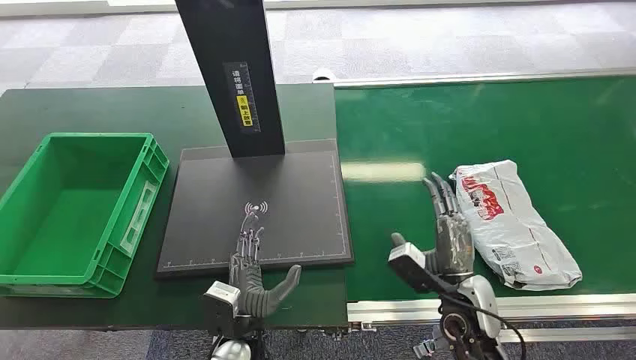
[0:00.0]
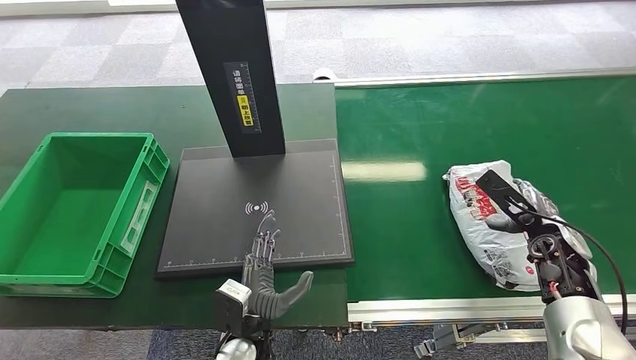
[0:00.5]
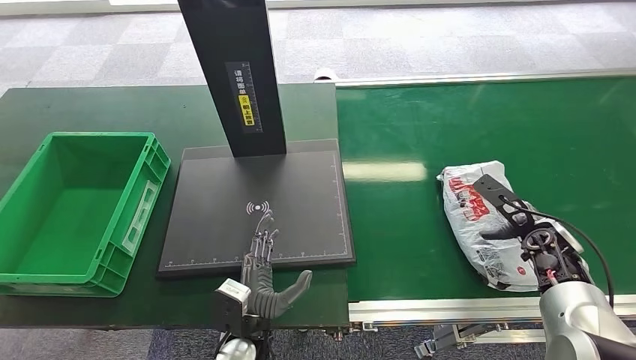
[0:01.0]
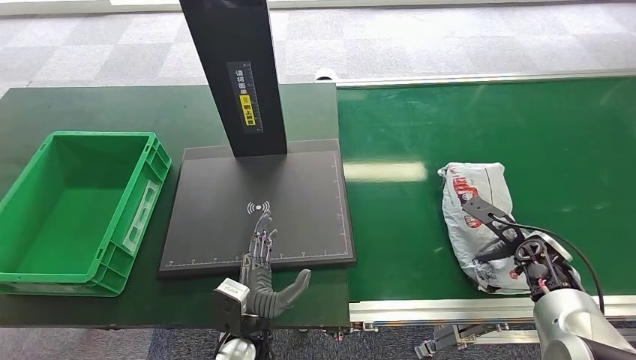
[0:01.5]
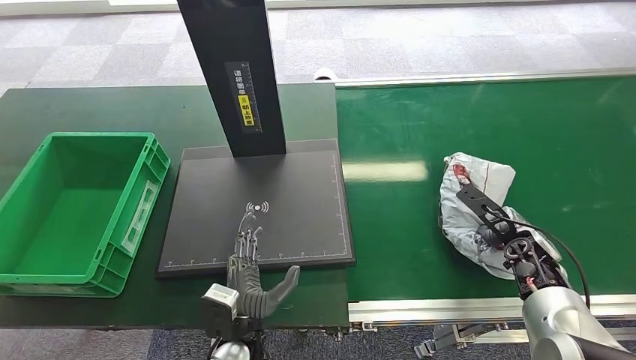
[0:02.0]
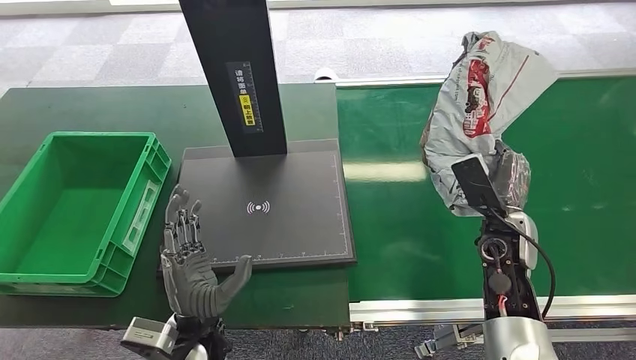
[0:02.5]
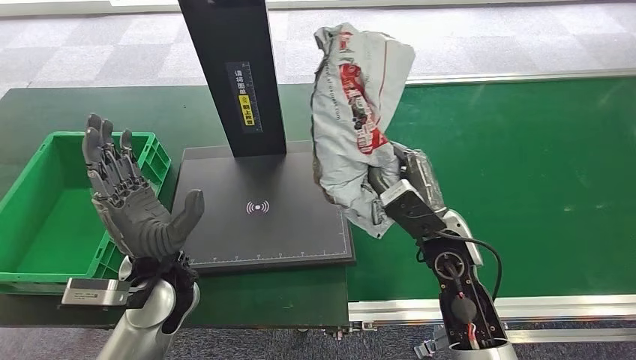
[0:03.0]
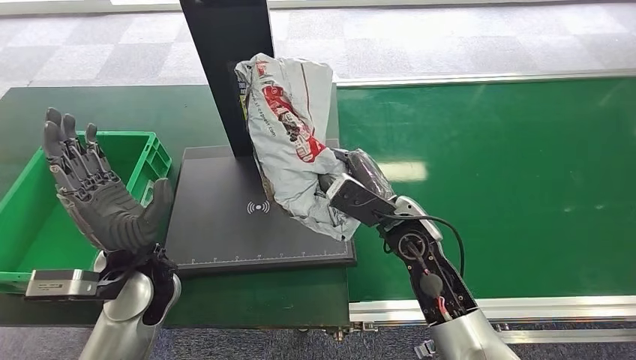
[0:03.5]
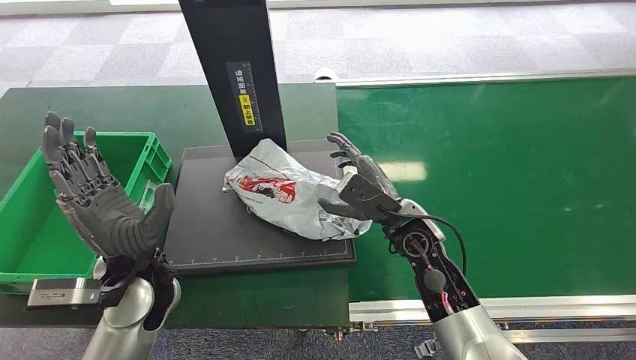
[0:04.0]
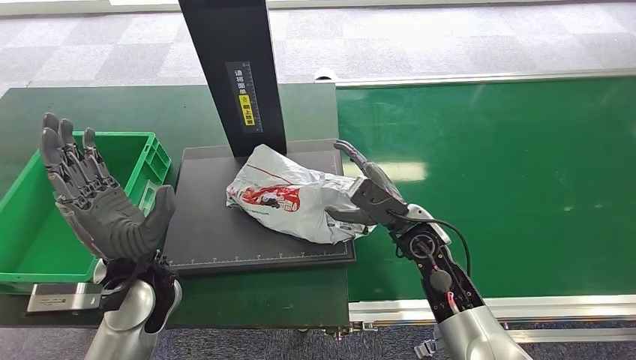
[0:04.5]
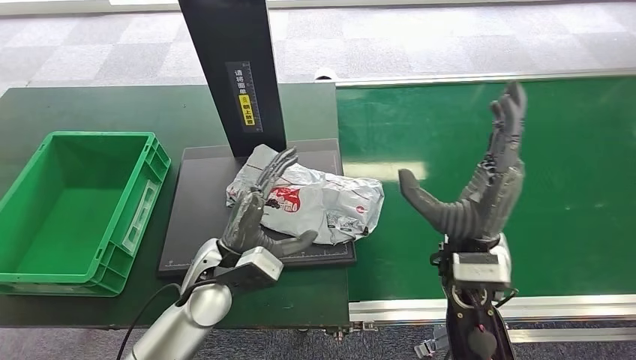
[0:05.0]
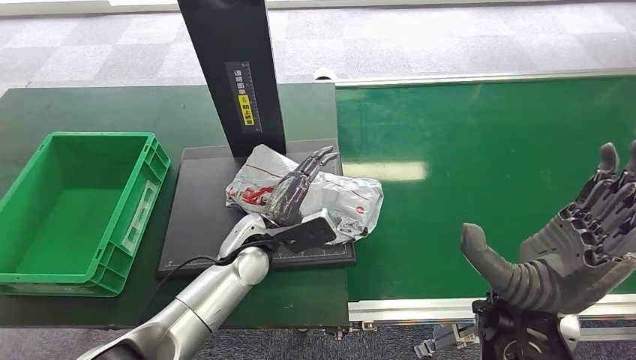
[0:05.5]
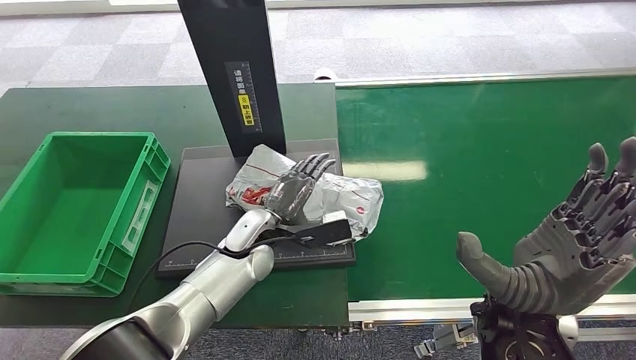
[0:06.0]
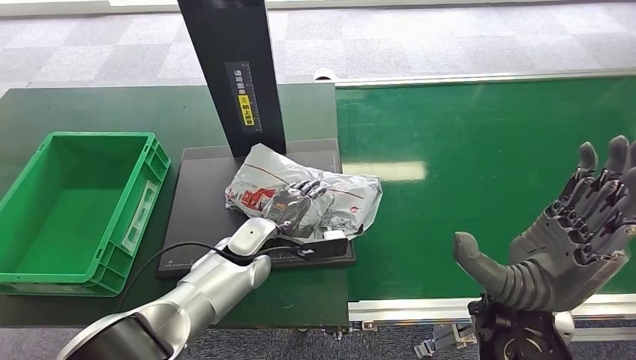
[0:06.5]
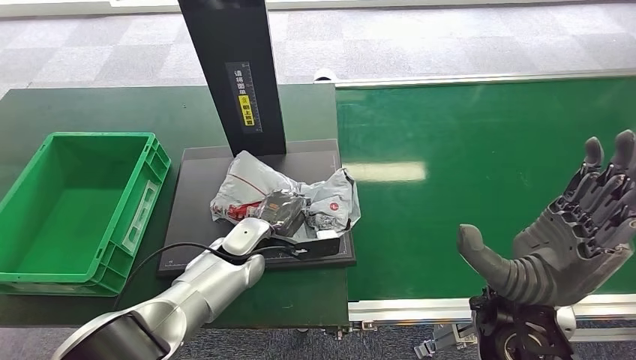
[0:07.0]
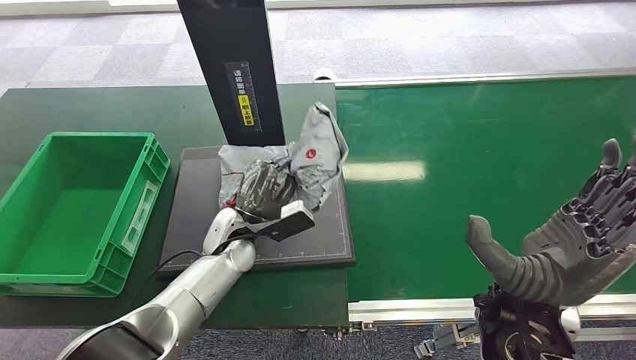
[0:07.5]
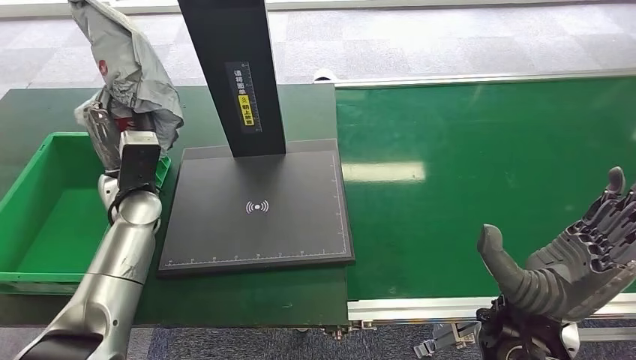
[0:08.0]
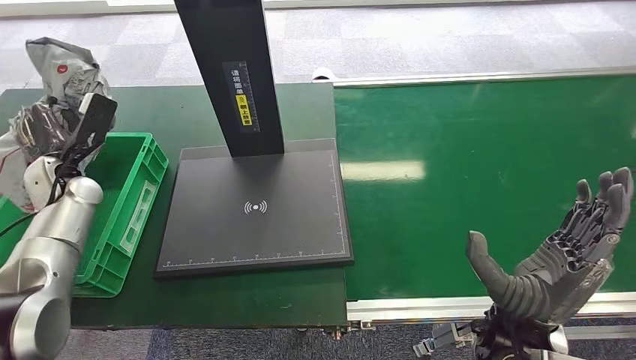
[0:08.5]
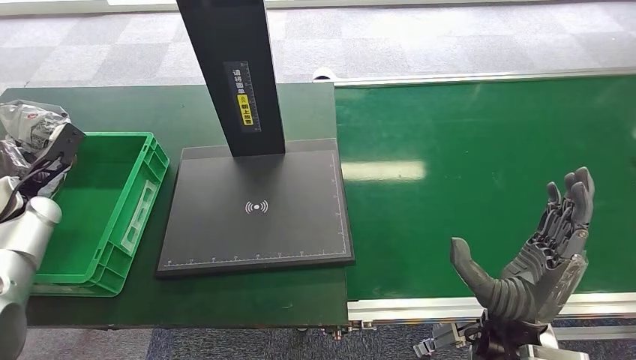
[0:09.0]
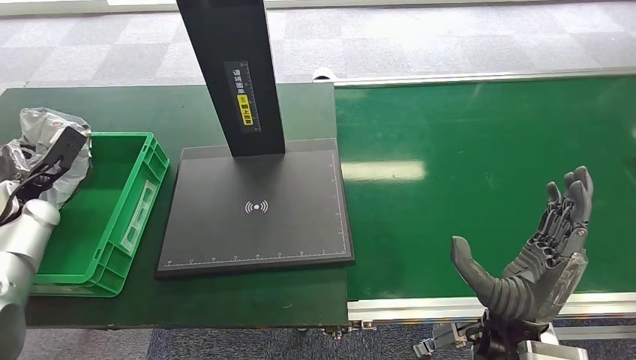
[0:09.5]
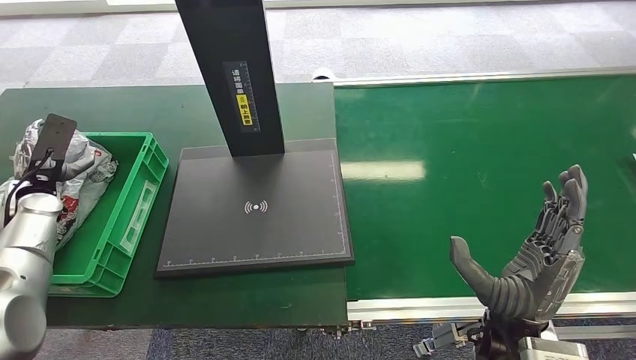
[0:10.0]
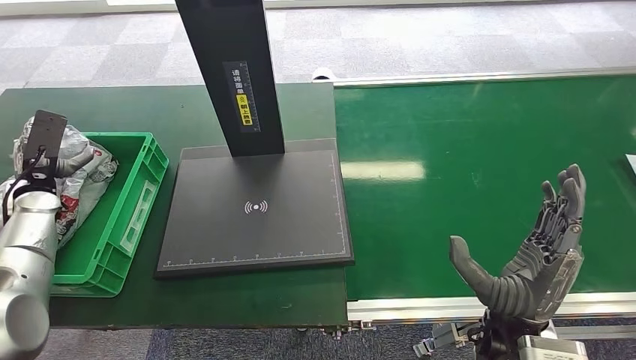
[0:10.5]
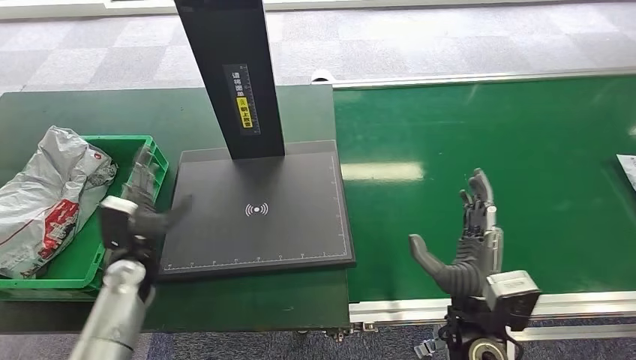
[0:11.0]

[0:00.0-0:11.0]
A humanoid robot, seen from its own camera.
Step, 0:00.0 to 0:02.5: Pick up the package from the conveyor belt.
Step, 0:03.0 to 0:05.0: Place the package onto the inbound machine.
Step, 0:05.5 to 0:08.0: Pick up the package from the inbound machine.
Step, 0:08.5 to 0:11.0: Place the package into the parcel locker.
0:07.5 to 0:09.0: The right hand travels downward by about 5 cm; the left hand travels to the left by about 35 cm.
